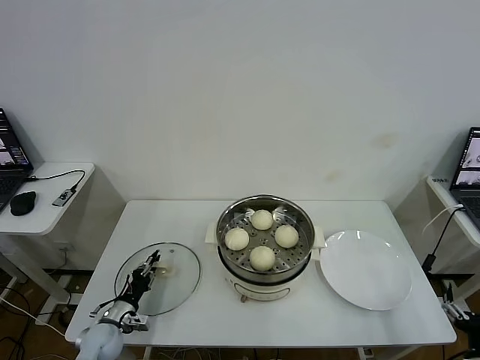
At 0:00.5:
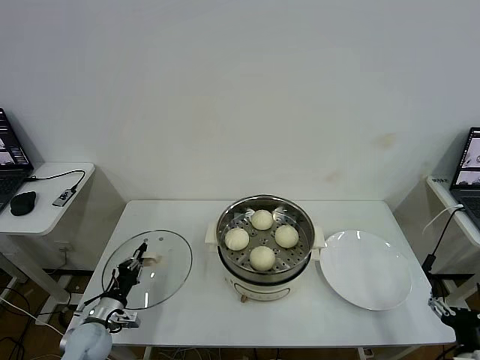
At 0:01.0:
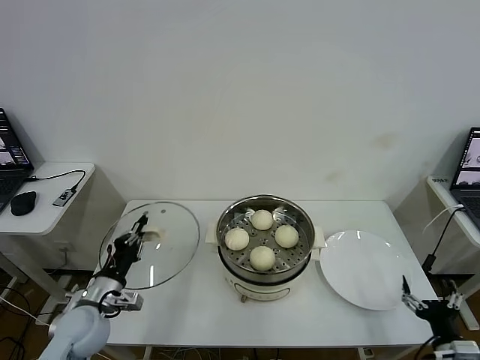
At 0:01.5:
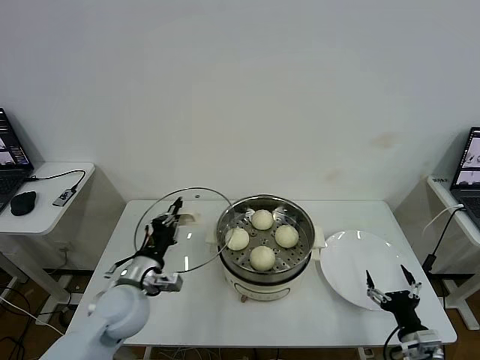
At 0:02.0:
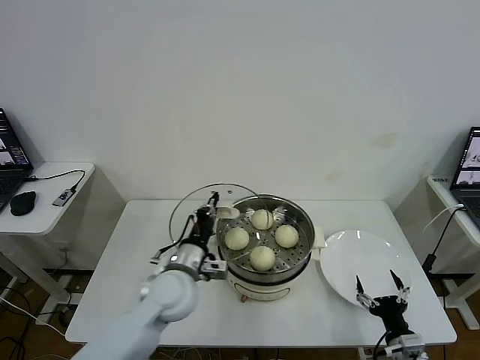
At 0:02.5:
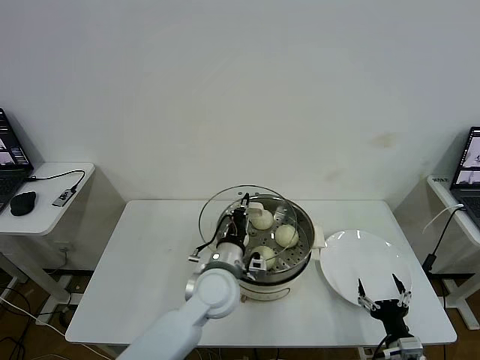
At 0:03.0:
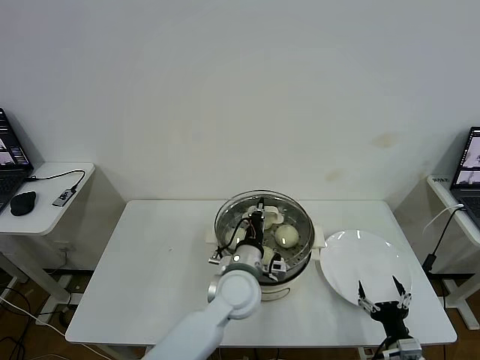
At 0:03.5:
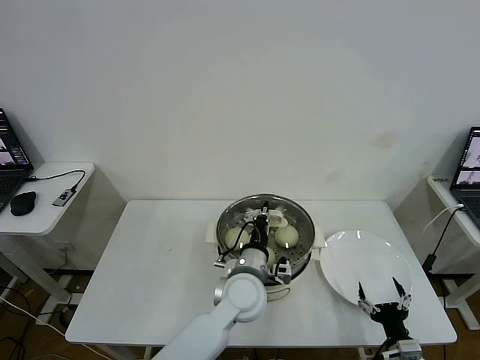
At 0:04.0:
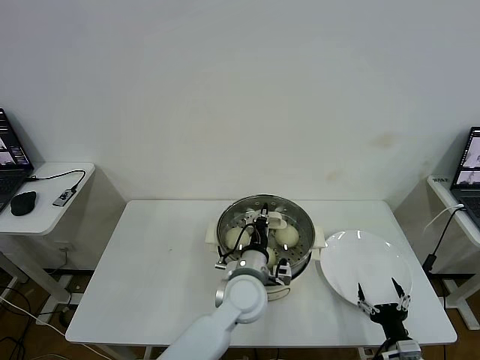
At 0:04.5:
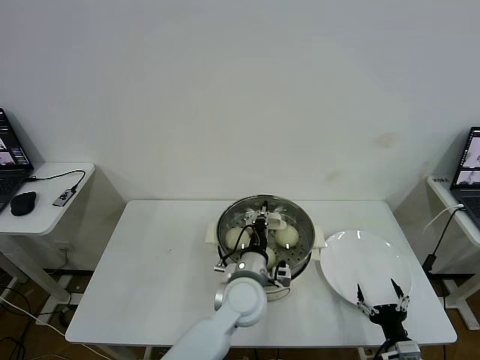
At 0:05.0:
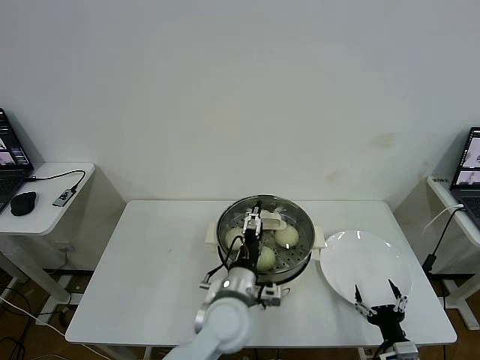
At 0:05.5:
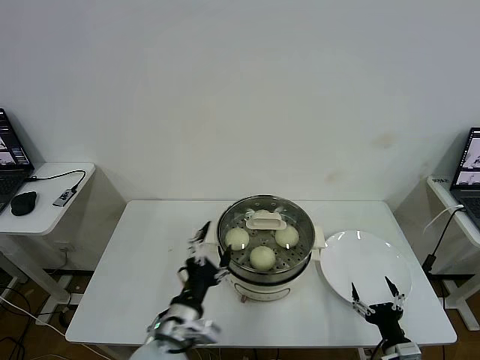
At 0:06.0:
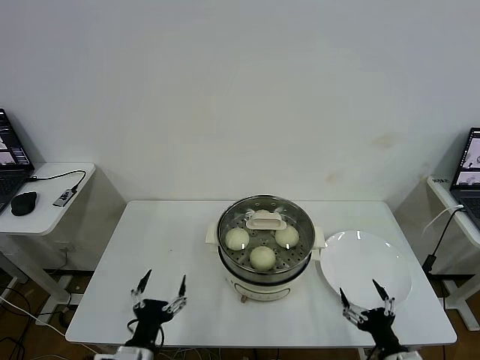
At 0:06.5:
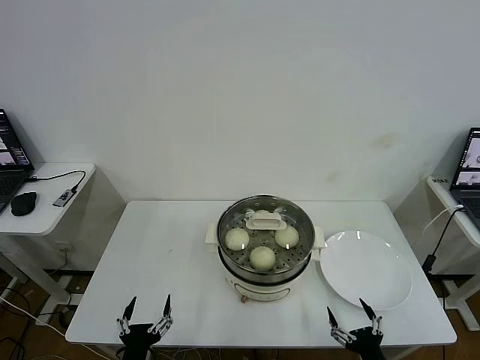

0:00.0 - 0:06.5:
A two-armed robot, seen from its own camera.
Task of the whole recording: take steamed baozi put them in steamer then cover it.
Step, 0:00.5 - 0:04.5: Place the pot lid on the steamer with left gripper.
0:00.0 - 0:02.0: The right gripper shifts approximately 10 cm to the left and forward, while the left gripper heads upward and to the right, covering approximately 30 cm.
0:02.0 - 0:04.5: The left gripper travels to the right by some 15 cm.
0:04.5 - 0:06.5: The right gripper moves backward, some 5 cm, while the left gripper is displaced to the left and backward by roughly 30 cm, and opens up.
